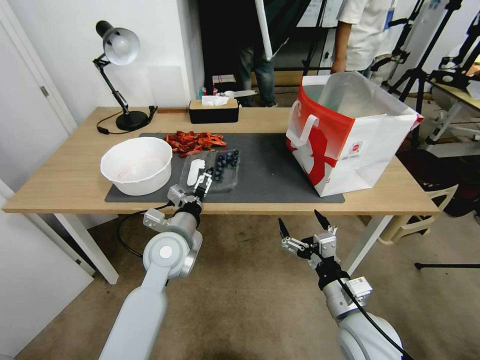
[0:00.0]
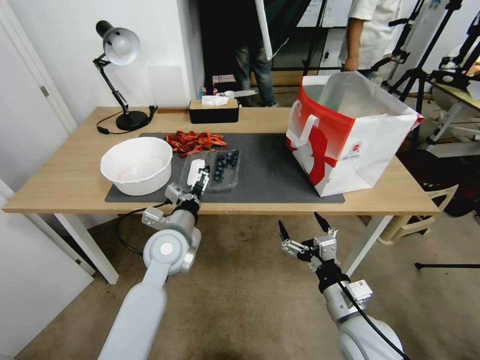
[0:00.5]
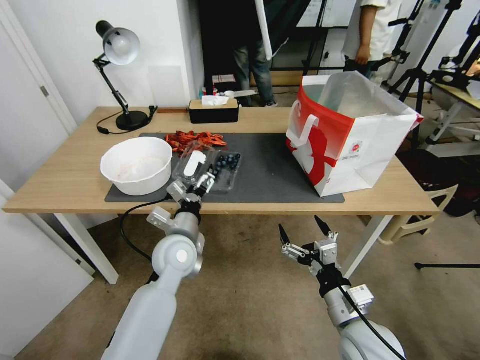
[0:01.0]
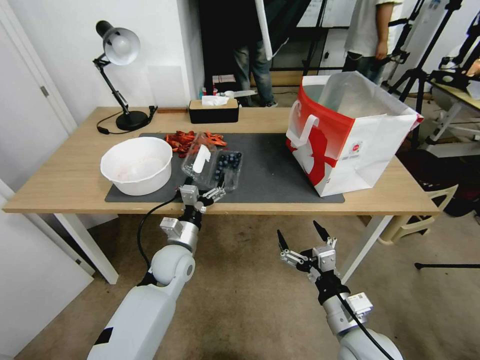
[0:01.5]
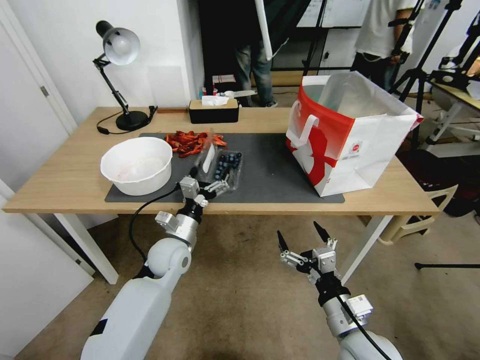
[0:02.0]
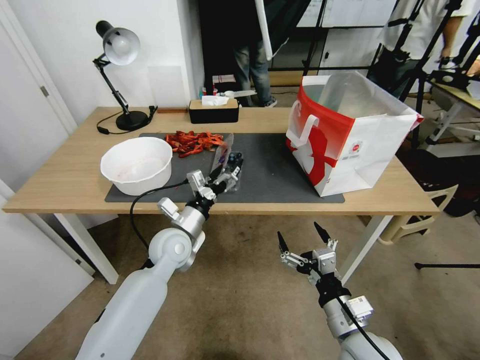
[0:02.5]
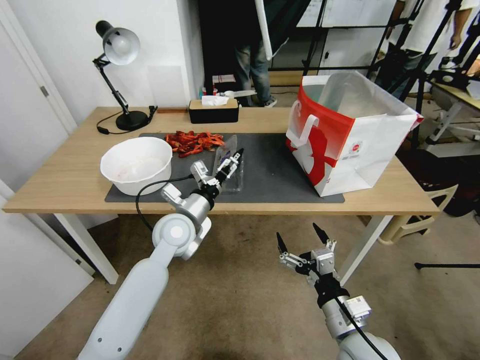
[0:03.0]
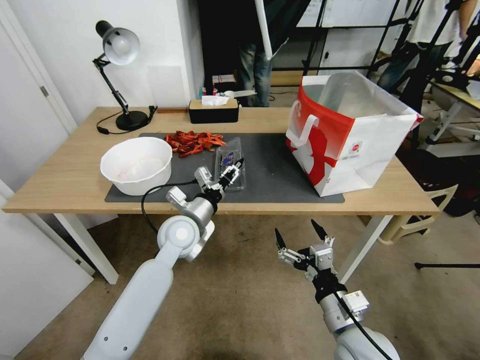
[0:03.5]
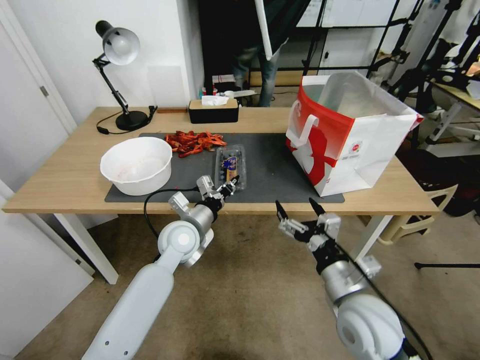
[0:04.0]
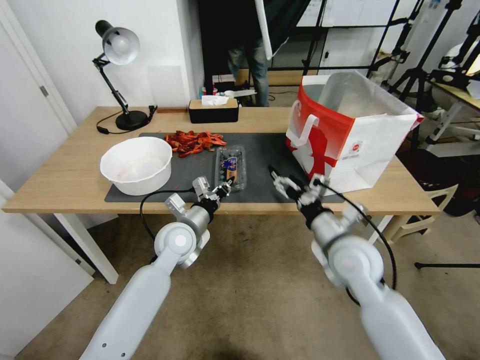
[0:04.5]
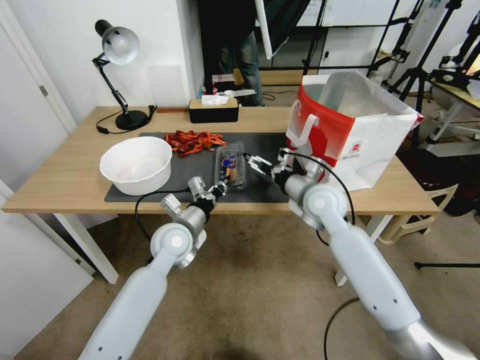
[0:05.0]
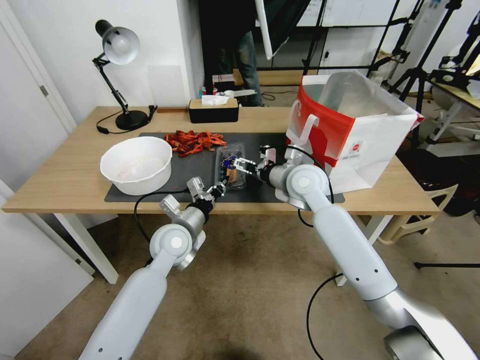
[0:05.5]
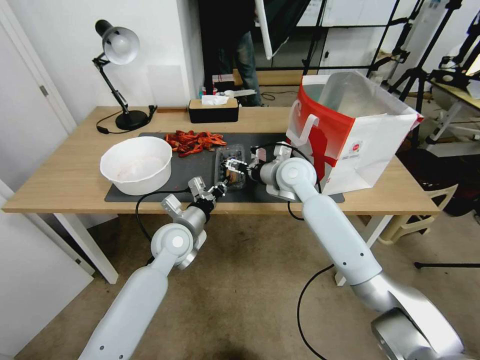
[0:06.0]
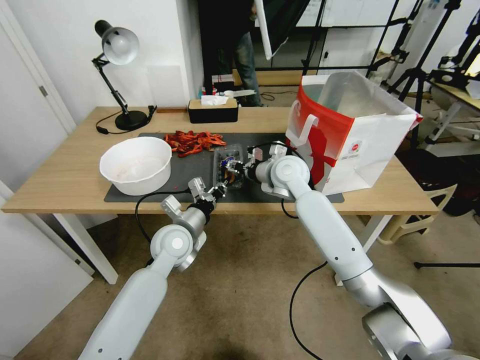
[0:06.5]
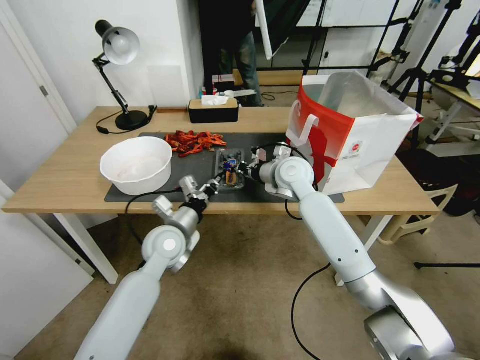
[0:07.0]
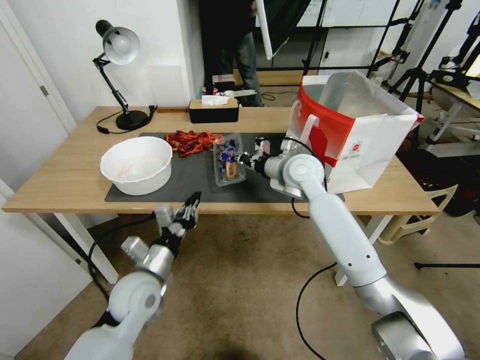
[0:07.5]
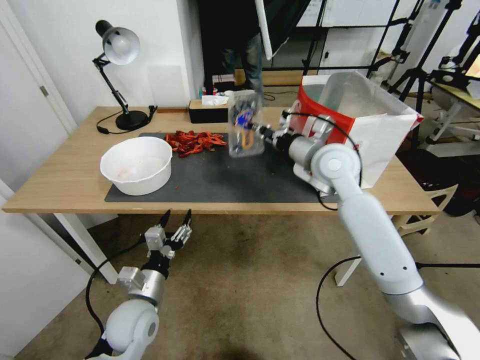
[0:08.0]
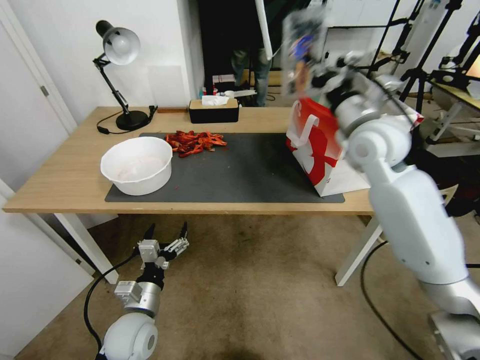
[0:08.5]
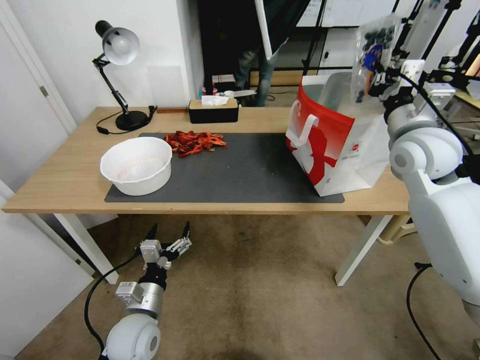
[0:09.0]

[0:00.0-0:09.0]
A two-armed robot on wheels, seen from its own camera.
Task of the whole recording: Close the takeout container lid, then place the container into the takeout bag.
0:00.0 to 0:02.0: The left gripper goes about 10 cm downward.
0:02.0 to 0:04.5: The right gripper shifts about 15 cm forward and upward, while the left gripper closes.
0:04.5 to 0:07.0: The right gripper travels forward and to the left by about 20 cm, and closes its fingers.
0:07.0 to 0:09.0: The right gripper is displaced to the right and upward by approximately 25 cm; the left gripper is displaced backward and downward by some 20 cm, and opens up.

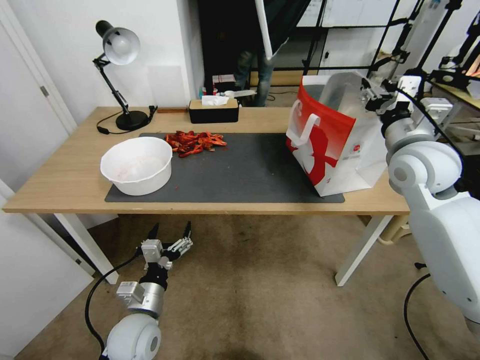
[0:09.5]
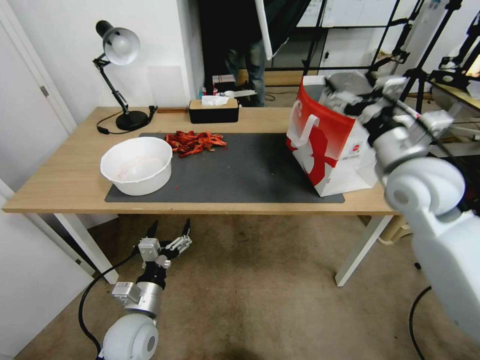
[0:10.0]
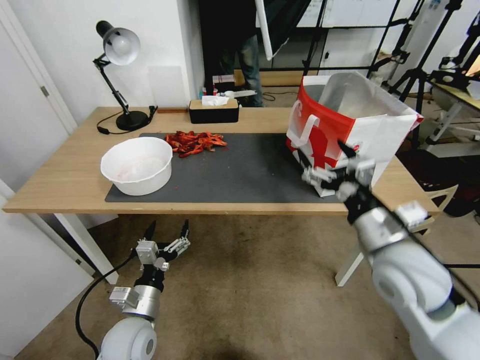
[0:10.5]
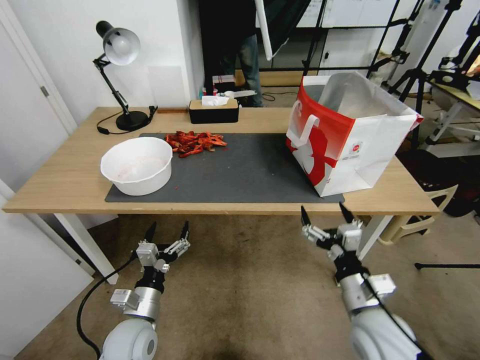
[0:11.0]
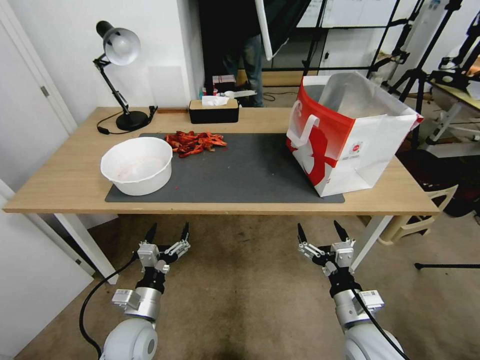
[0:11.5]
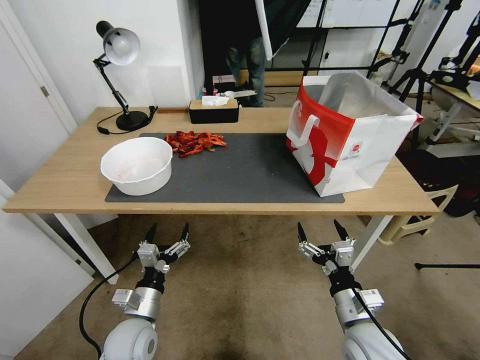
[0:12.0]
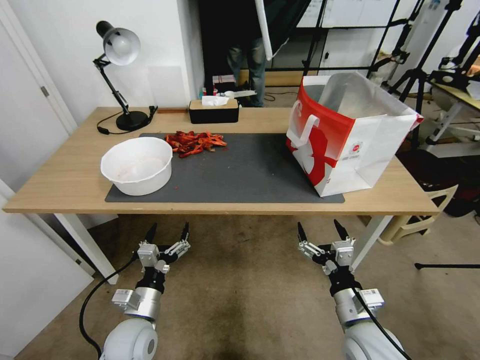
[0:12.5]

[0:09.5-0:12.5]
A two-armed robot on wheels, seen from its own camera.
Task of the whole recording: Close the takeout container lid, then place the container into the takeout bag.
0:09.5 to 0:11.0: The right gripper heads backward and downward, covering approximately 30 cm, and opens its fingers.
0:11.0 to 0:12.5: The right gripper moves downward, about 5 cm.

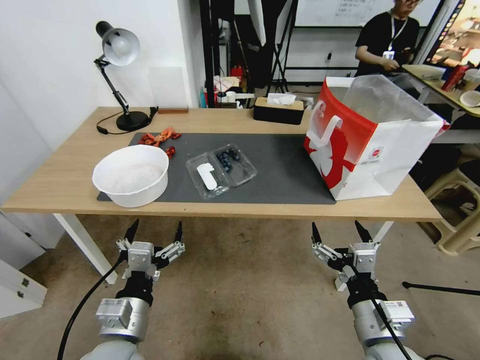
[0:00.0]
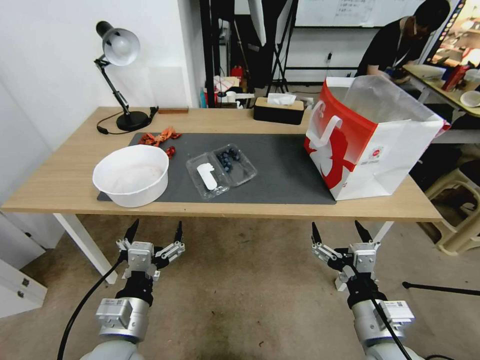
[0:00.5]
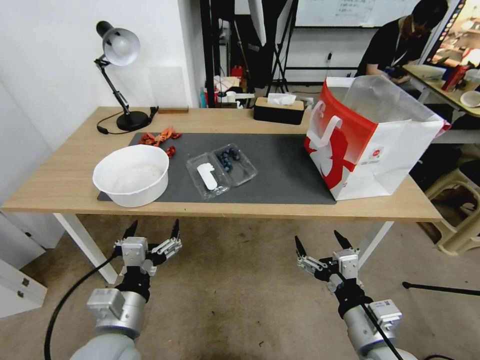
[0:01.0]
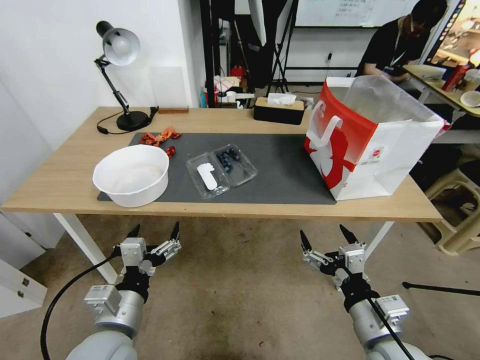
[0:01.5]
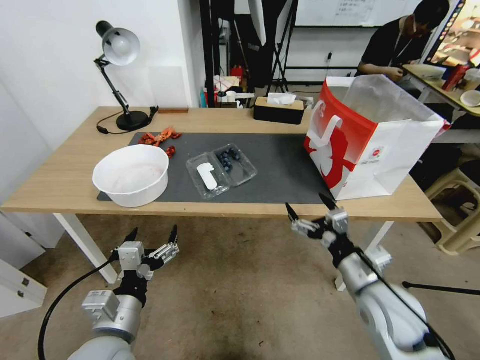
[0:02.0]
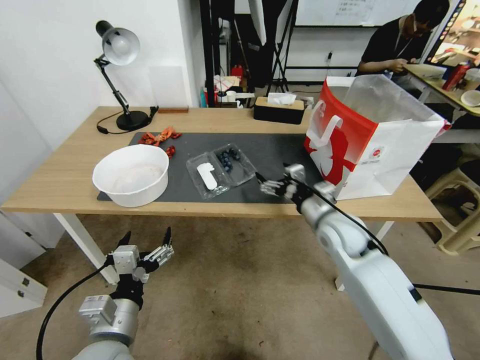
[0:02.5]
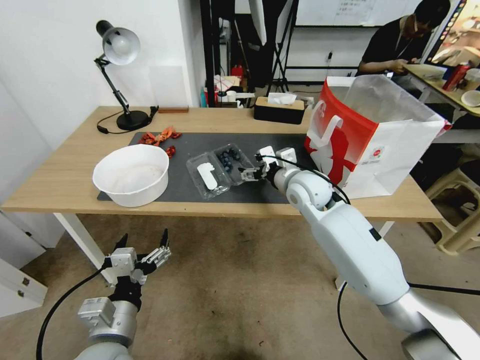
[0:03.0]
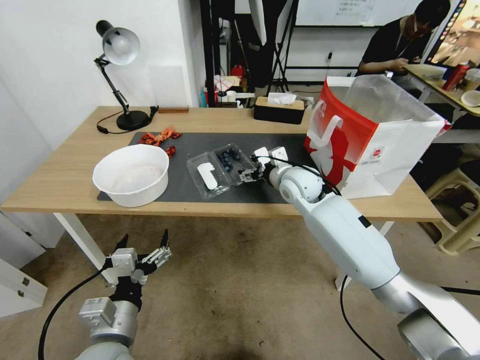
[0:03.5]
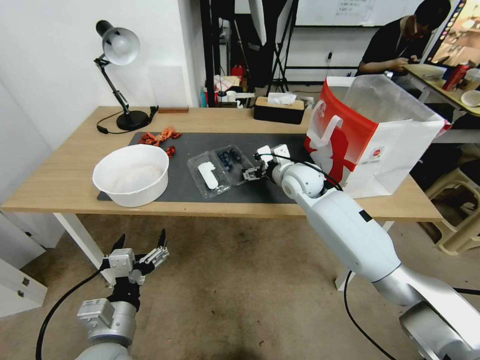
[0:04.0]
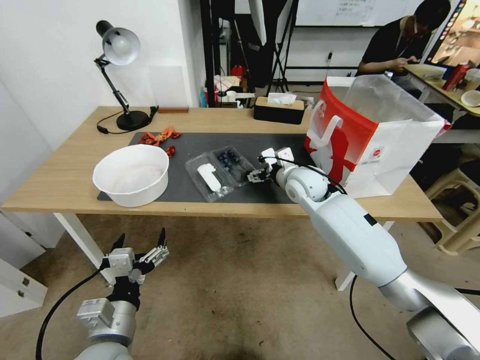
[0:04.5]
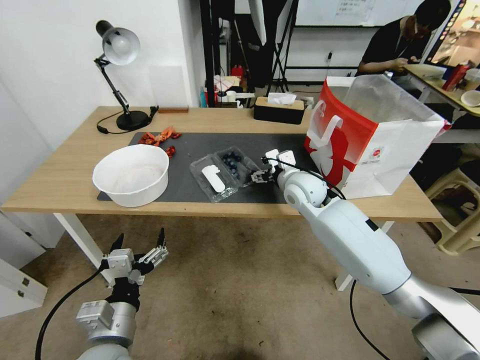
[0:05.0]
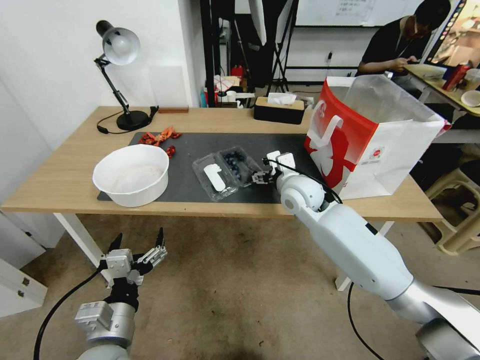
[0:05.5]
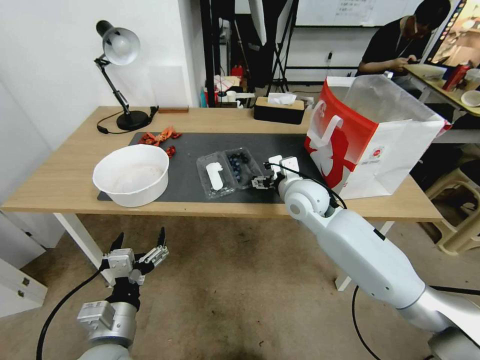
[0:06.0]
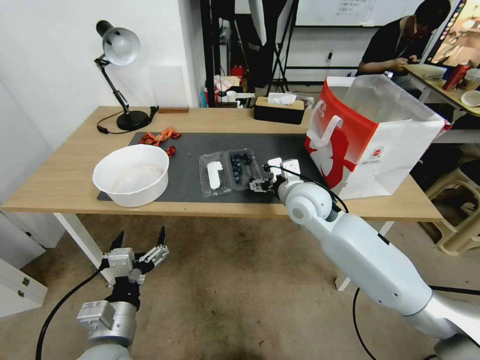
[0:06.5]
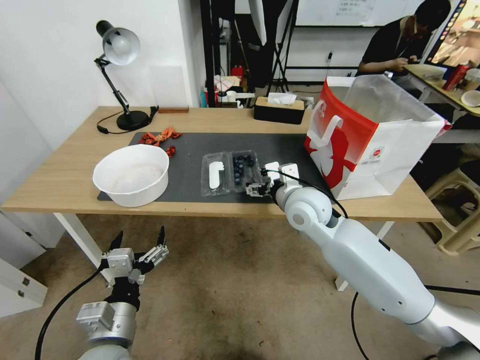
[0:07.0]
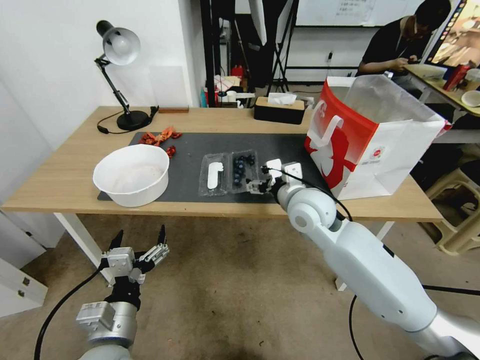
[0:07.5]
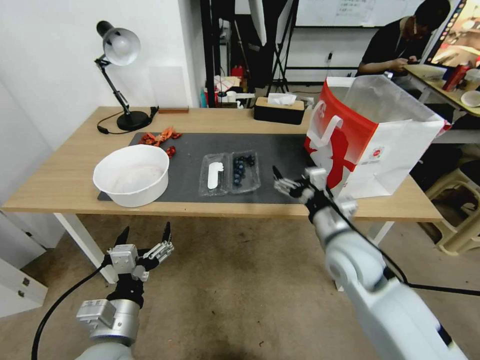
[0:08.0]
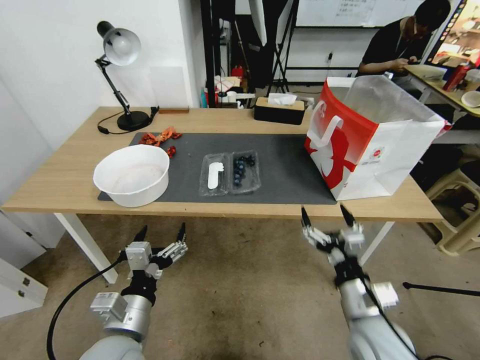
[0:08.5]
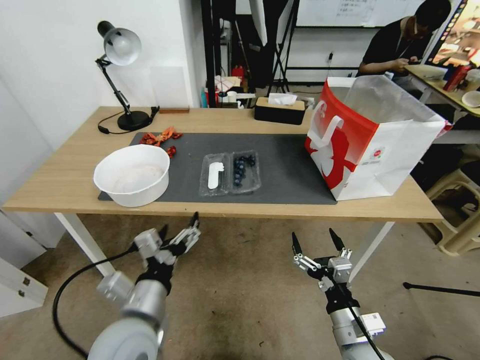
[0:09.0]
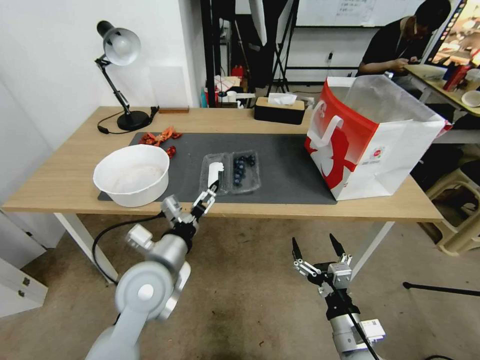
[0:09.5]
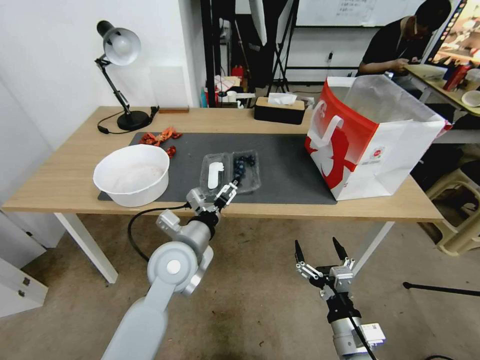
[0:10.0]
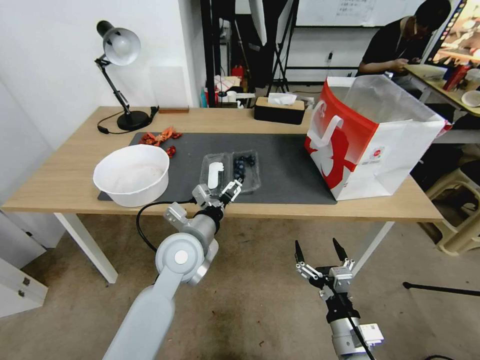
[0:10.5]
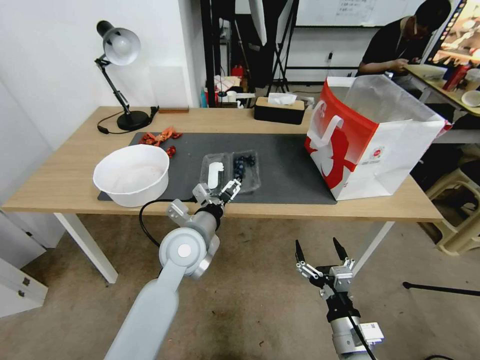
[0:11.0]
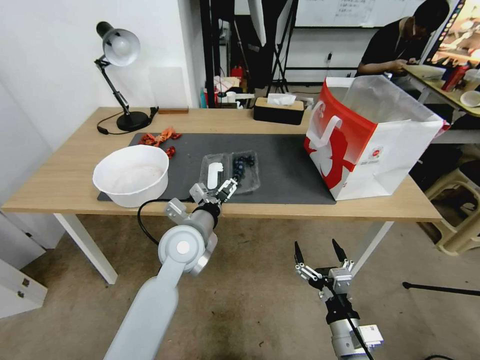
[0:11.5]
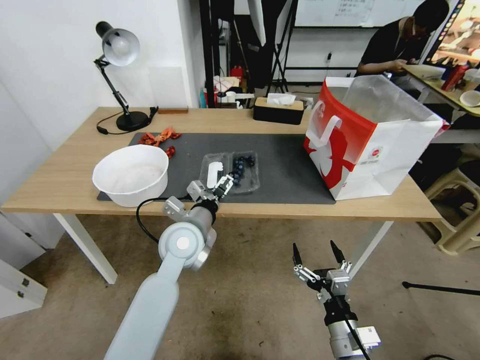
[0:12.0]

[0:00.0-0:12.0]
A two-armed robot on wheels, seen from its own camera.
Task of the whole recording: Close the takeout container lid, then place the container into the takeout bag.
0:02.0 to 0:04.0: The right gripper heads forward and to the left, covering about 30 cm.
0:04.0 to 0:06.0: The right gripper heads backward, covering about 5 cm.
0:06.0 to 0:08.0: The right gripper is displaced backward and to the right by some 15 cm.
0:08.0 to 0:10.0: The left gripper heads forward and to the right, covering about 20 cm, while the right gripper moves backward and downward, approximately 20 cm.
0:10.0 to 0:12.0: There are only small adjustments of the grippers.

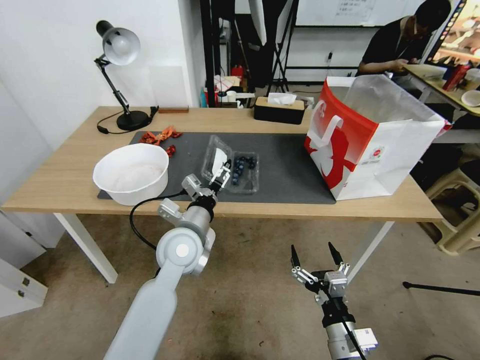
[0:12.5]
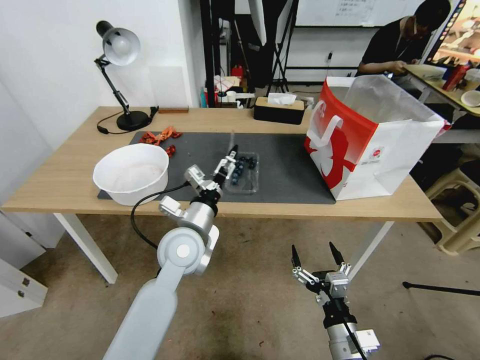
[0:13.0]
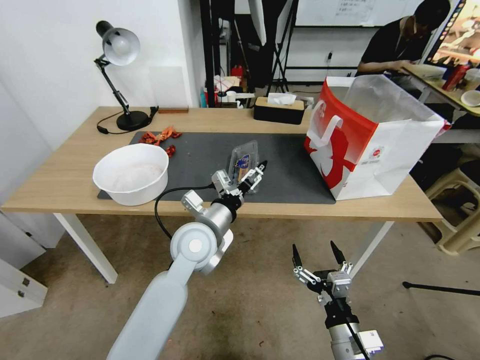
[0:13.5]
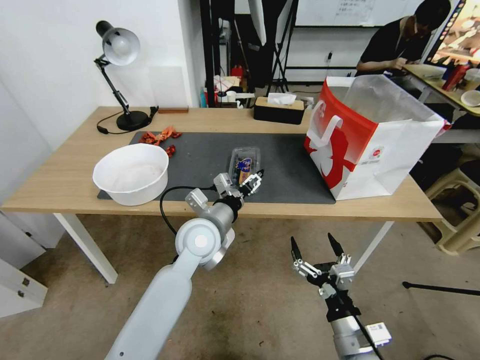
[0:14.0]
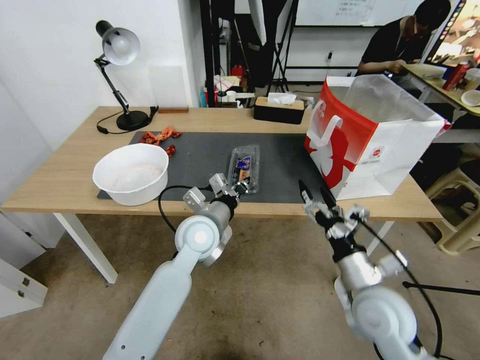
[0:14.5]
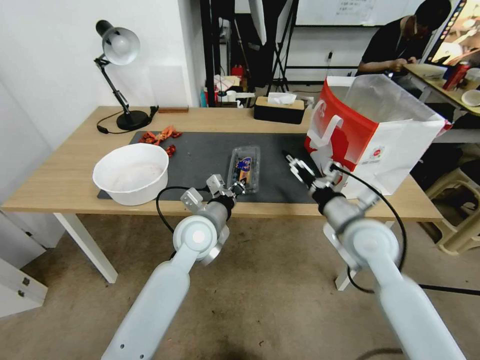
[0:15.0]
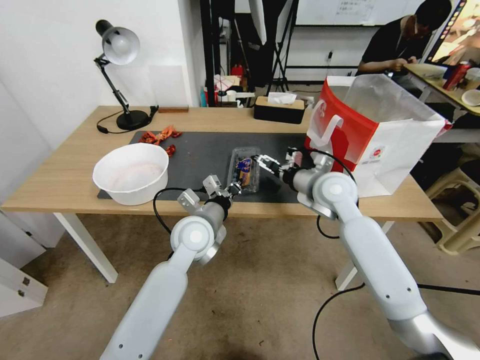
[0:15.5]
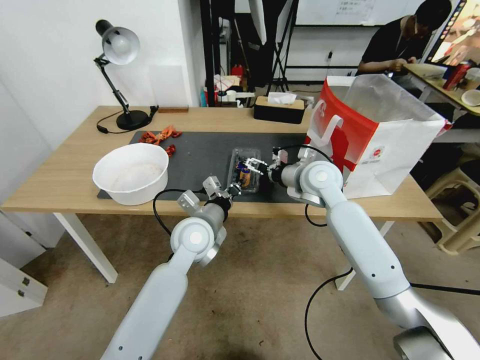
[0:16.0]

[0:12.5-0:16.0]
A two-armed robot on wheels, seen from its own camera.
Task of the whole recording: Close the takeout container lid, then place the container into the takeout bag.
0:12.5 to 0:14.5: The right gripper shifts about 15 cm upward and forward. Meanwhile the left gripper closes up.
0:14.5 to 0:16.0: The right gripper heads forward, covering approximately 25 cm.
